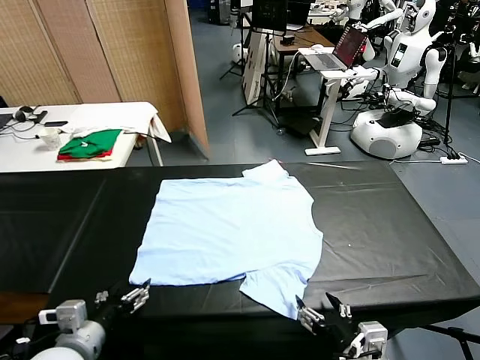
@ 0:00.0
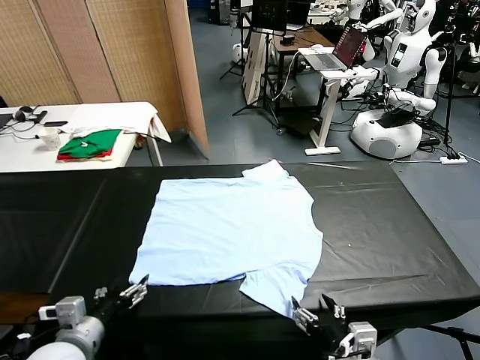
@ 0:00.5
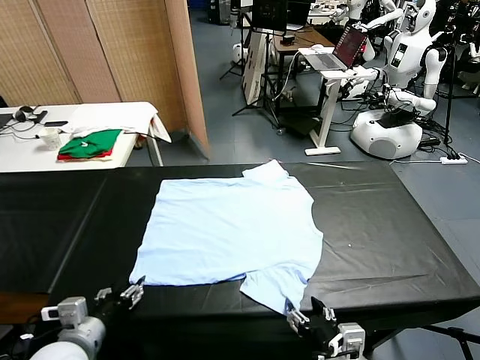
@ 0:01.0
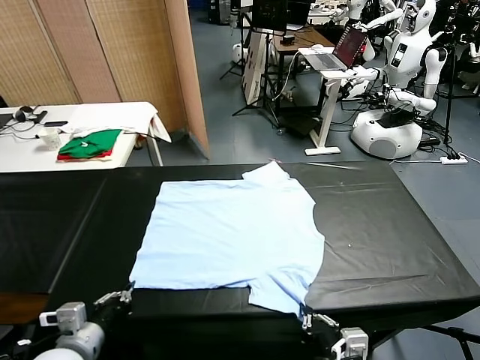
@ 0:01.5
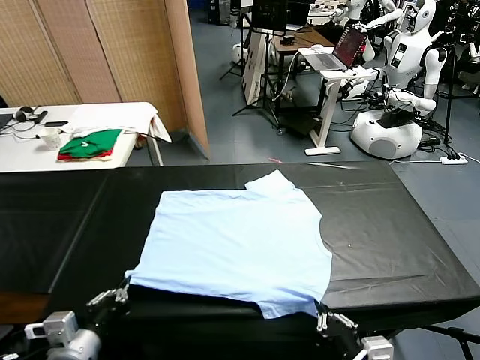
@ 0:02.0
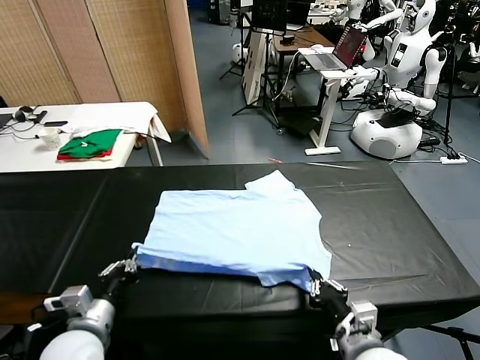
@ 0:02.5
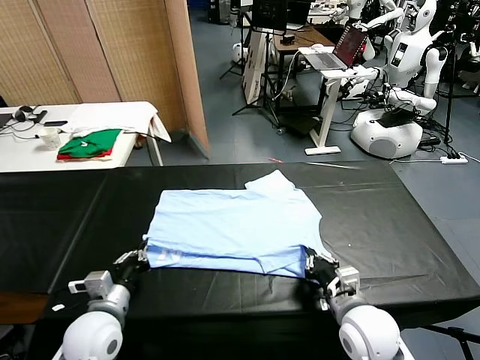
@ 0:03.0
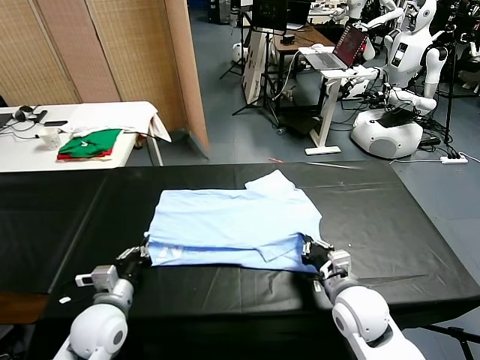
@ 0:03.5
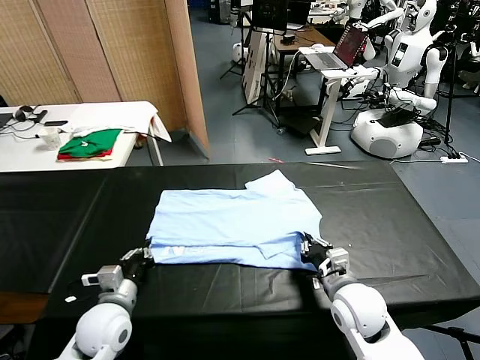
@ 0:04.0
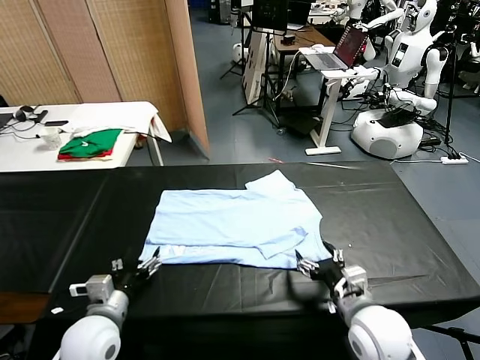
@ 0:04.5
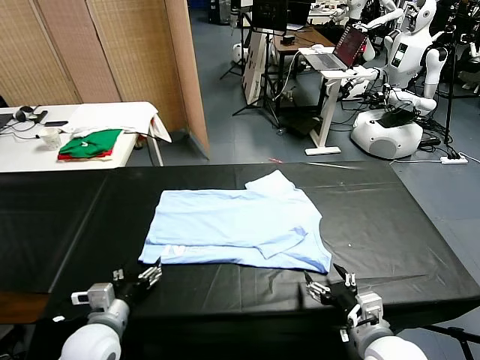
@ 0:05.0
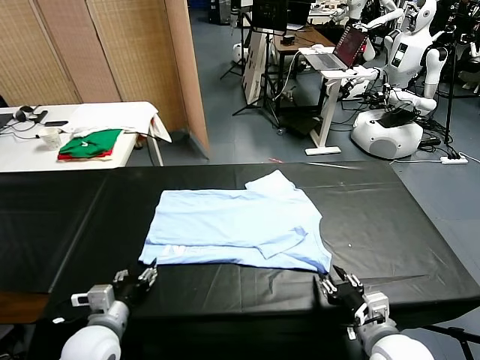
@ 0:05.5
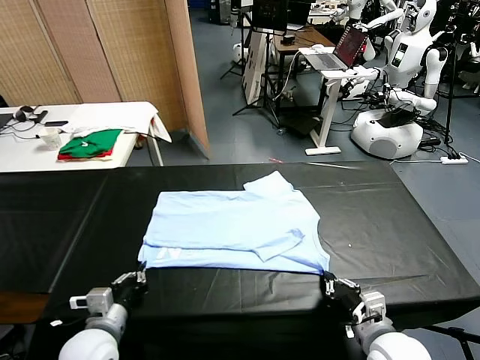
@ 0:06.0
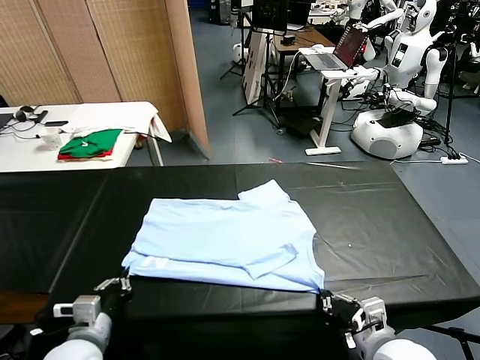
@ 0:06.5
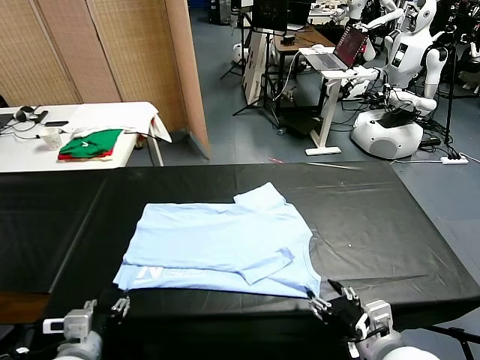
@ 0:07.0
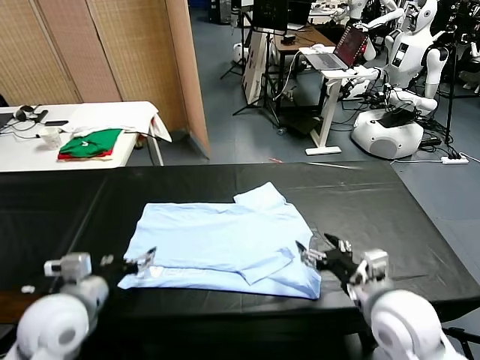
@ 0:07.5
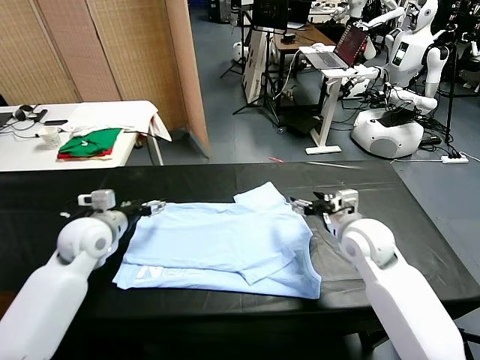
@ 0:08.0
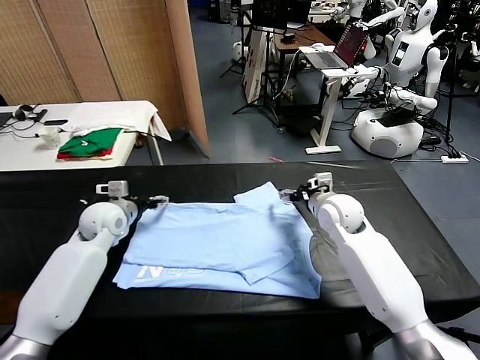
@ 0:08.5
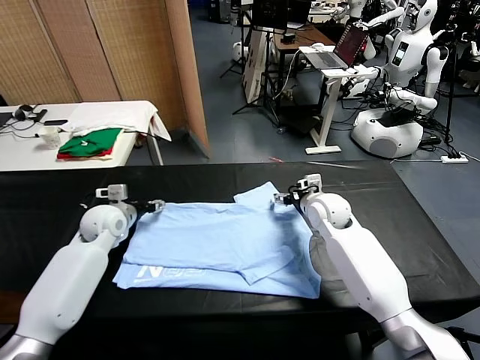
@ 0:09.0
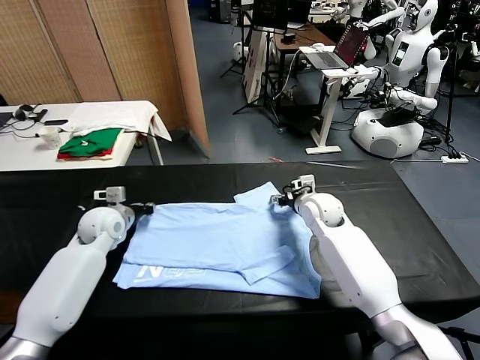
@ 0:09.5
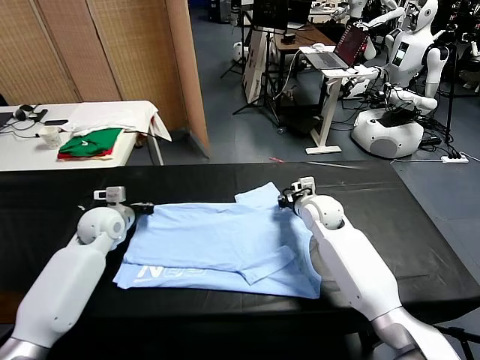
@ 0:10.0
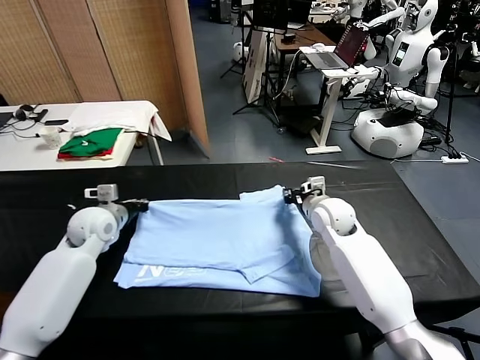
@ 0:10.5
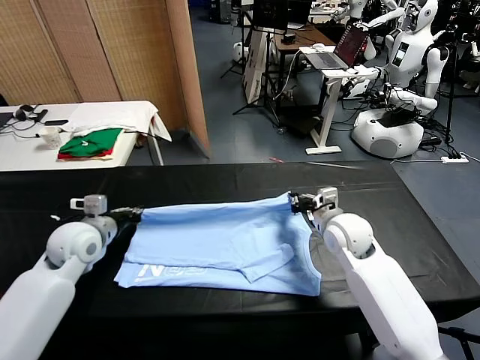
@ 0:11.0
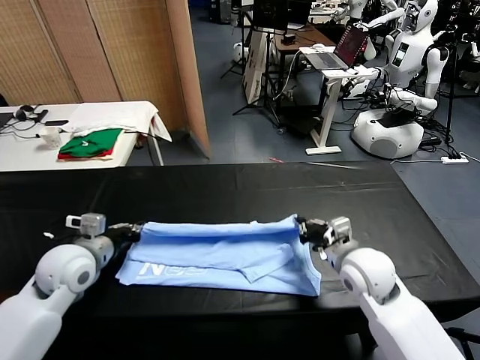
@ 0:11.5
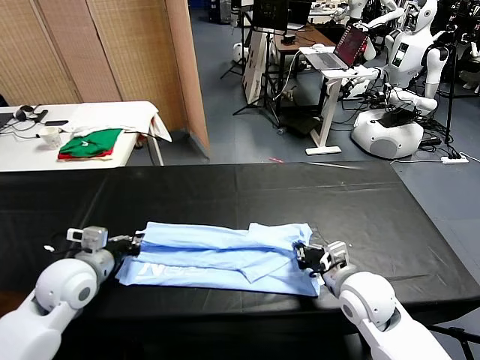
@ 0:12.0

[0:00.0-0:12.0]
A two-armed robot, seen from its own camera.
Task of the whole recording: fold and organize the clothes.
Step, 0:00.0 to 0:01.0: use both grippers simultaneously to clamp the lower edge of the clothing fabric.
Step, 0:01.5 to 0:04.0: use both grippers to drag the lower edge of the fabric forward and fold it over the upper edge.
Step, 0:04.5 to 0:07.0: Drag the clothes downward with both gripper.
Step, 0:07.5 to 0:09.5: use both grippers simultaneously to clamp the upper edge of the clothing fabric.
0:02.0 to 0:04.0: The right gripper shifts approximately 10 cm forward, and opens its fingers, while the left gripper travels forward and downward by about 15 cm.
0:04.0 to 0:06.0: The right gripper heads backward, covering about 10 cm, and closes. Meanwhile the left gripper is displaced backward by approximately 5 cm, and opens, then closes once more.
0:06.0 to 0:08.0: The left gripper heads forward and upward, covering some 25 cm, and opens up, while the right gripper is displaced forward by approximately 25 cm, and opens.
0:08.0 to 0:10.0: The left gripper changes place by approximately 5 cm, and closes up, while the right gripper is displaced forward by some 5 cm, and closes up.
0:10.0 to 0:12.0: The two grippers go roughly 20 cm backward.

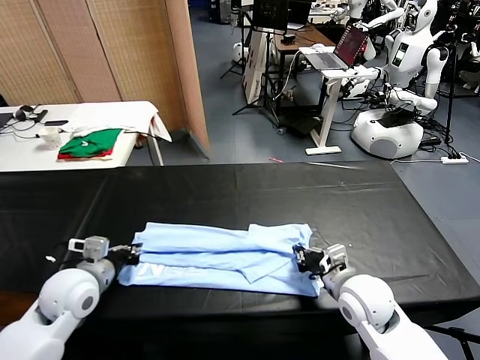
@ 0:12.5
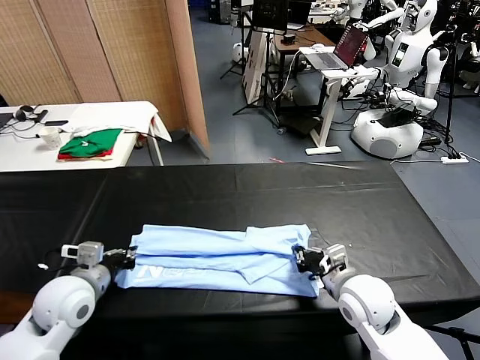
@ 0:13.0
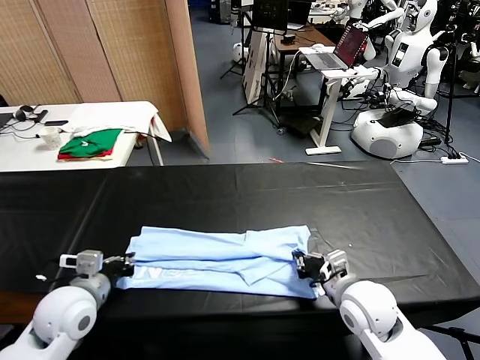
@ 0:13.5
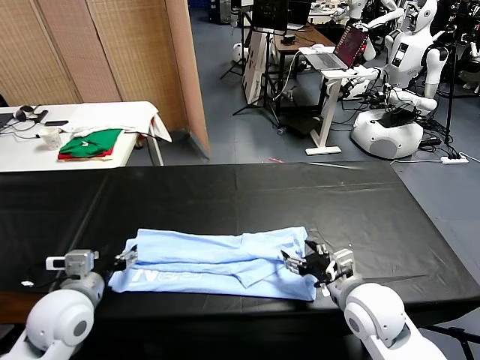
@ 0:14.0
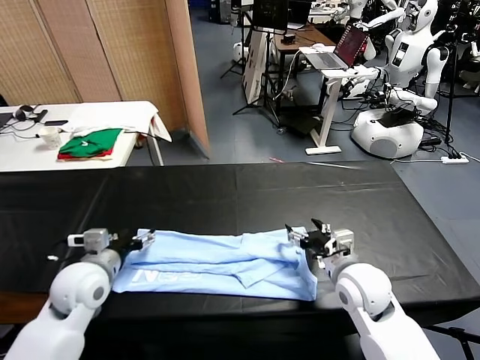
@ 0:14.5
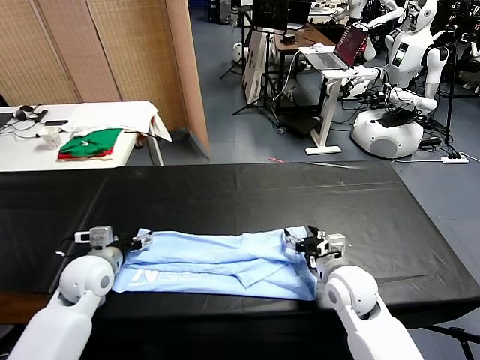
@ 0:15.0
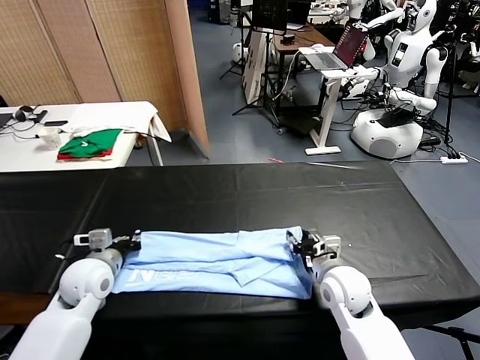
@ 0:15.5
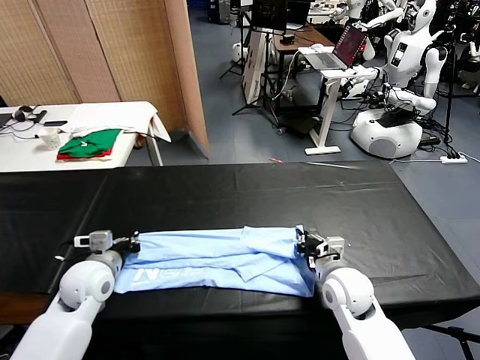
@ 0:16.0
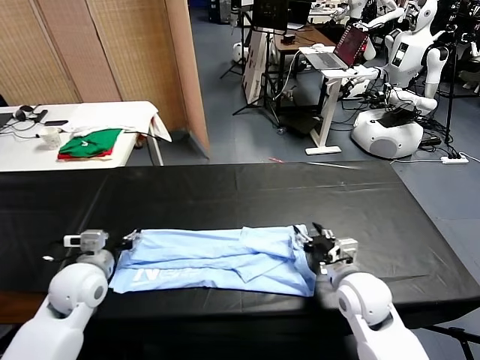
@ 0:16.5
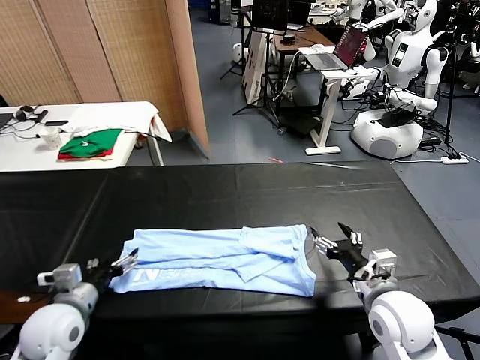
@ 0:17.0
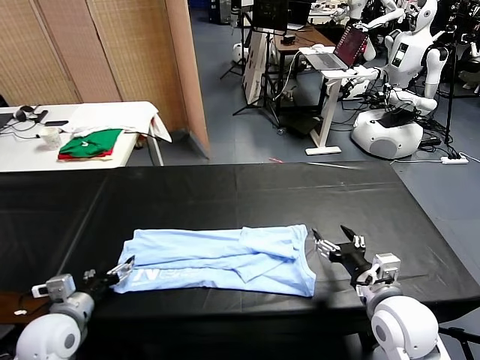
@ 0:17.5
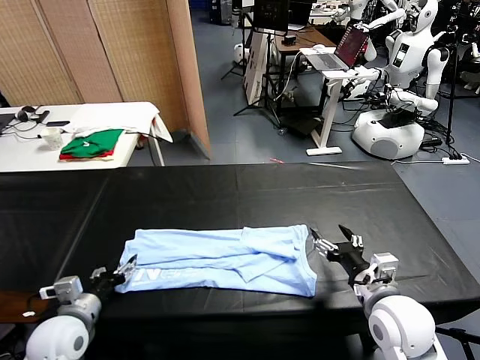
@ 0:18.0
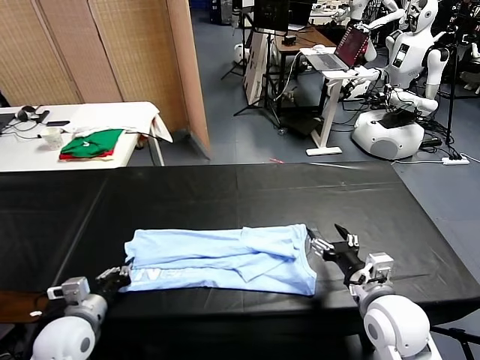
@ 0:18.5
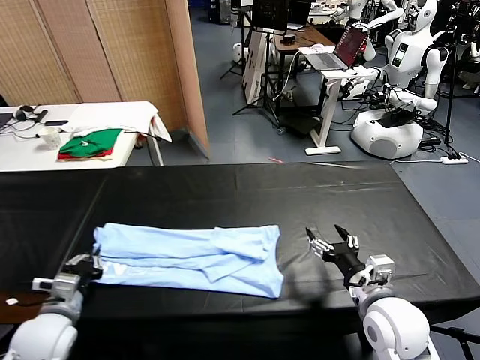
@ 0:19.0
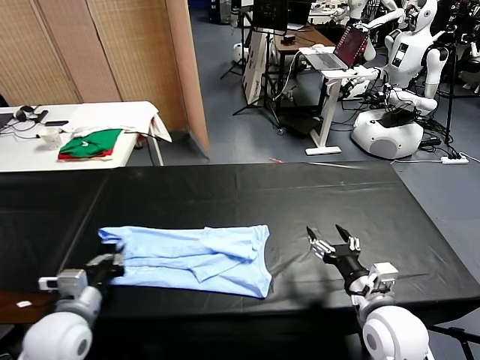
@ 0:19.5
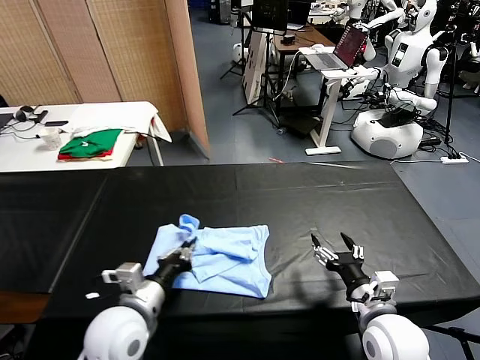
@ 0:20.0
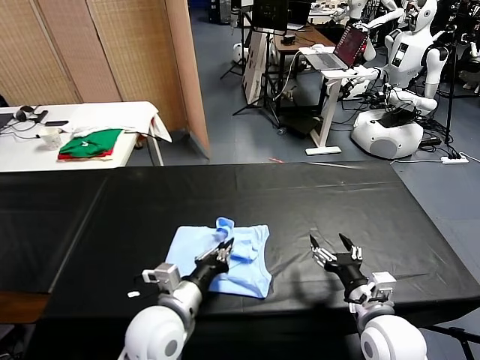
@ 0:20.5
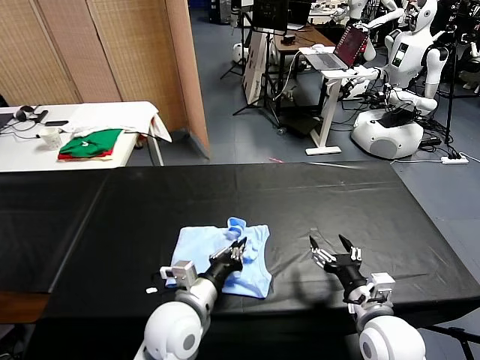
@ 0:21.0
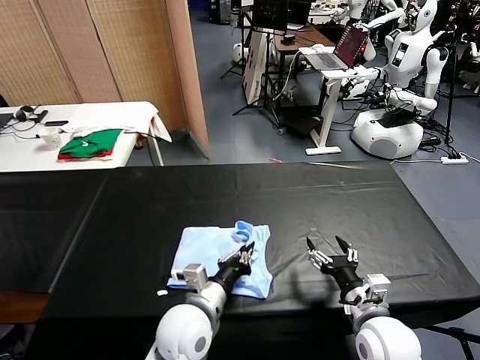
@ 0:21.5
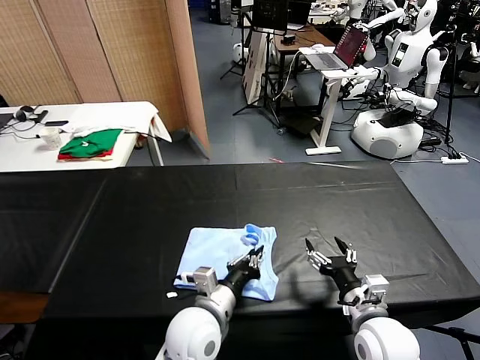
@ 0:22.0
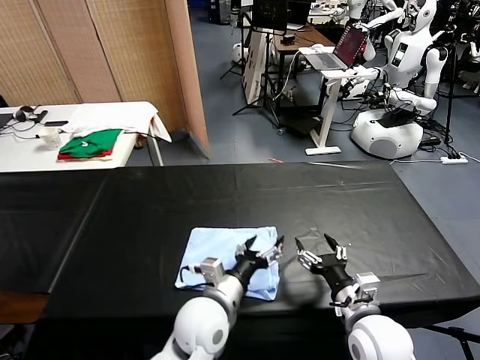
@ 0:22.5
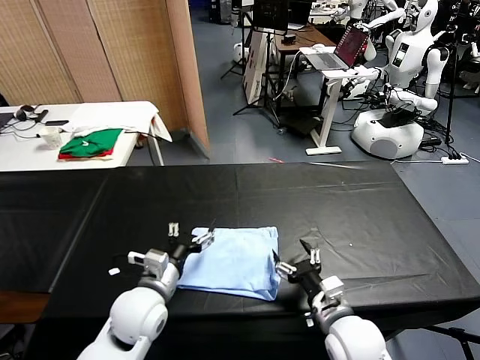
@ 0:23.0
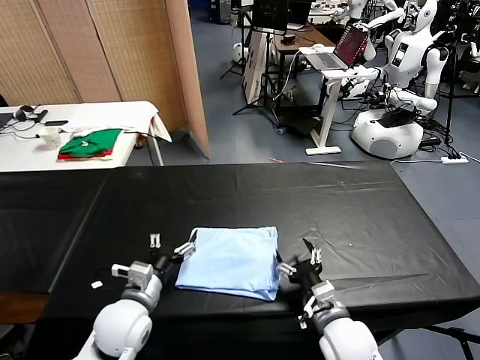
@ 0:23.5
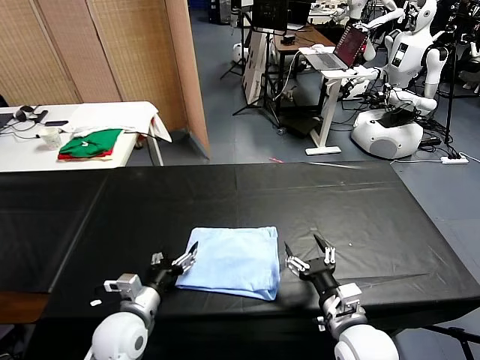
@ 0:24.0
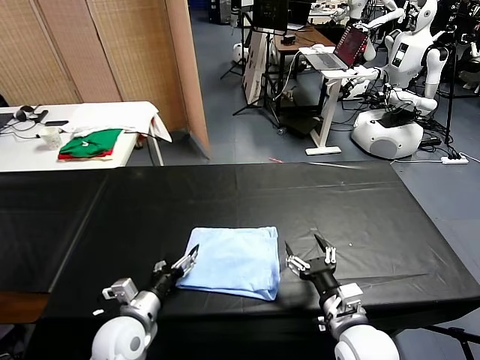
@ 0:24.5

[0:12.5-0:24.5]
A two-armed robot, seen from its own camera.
Task of the whole recording: fold and organize the clothes.
Step, 0:14.0 to 0:18.0: use the left gripper to clamp the left edge of the fabric.
Step, 0:18.5 to 0:22.0: use the left gripper to drag the left edge of the fabric to the left and folds it over the right edge.
0:12.5 to 0:14.5: The left gripper opens its fingers, while the right gripper opens up.
0:14.5 to 0:16.5: The right gripper closes, then reopens; the left gripper closes and opens again.
0:16.5 to 0:18.5: The left gripper heads backward and downward, covering approximately 10 cm, and closes up.
0:18.5 to 0:20.5: The left gripper is displaced to the right by about 20 cm.
0:20.5 to 0:22.5: The left gripper travels to the right by about 5 cm, and opens.
0:22.5 to 0:24.5: The left gripper moves to the left, about 15 cm.

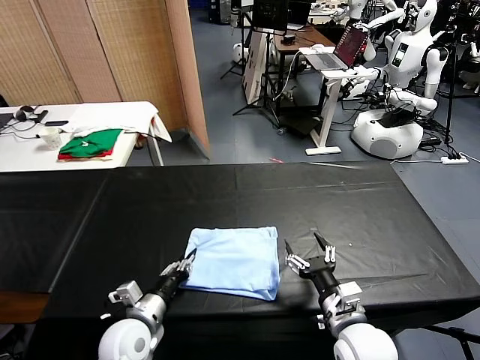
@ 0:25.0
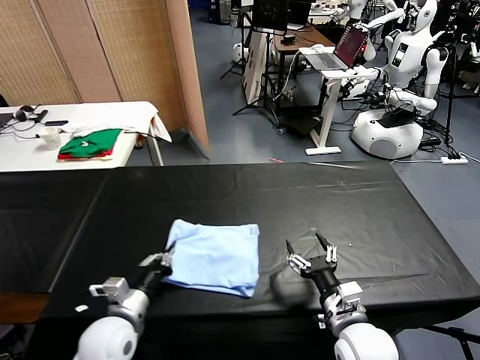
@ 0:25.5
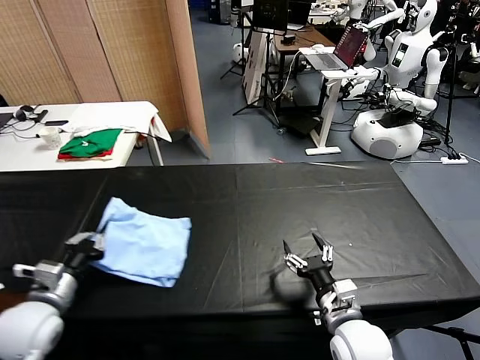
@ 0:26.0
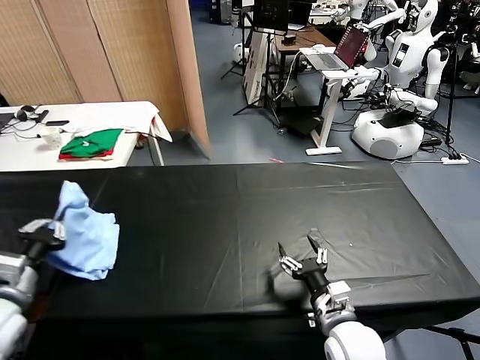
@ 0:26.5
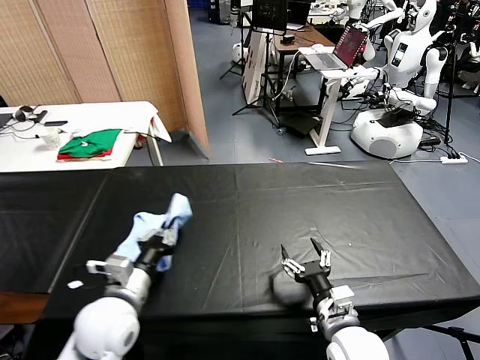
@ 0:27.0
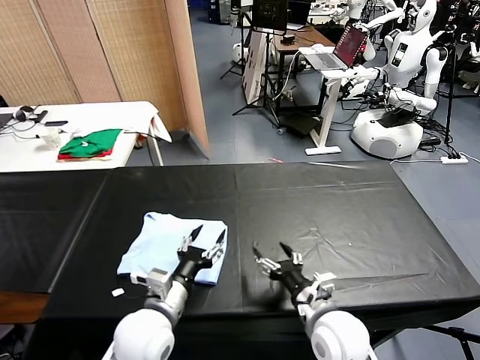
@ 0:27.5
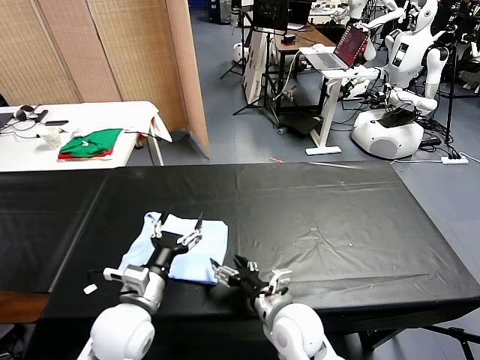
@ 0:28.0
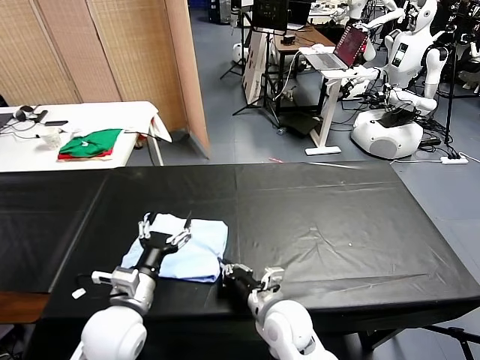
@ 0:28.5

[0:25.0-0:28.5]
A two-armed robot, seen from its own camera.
Task of the whole recording: fold and organize the clothes.
Step, 0:25.0 to 0:27.0: Flip the folded clothes over with left gripper.
0:25.0 to 0:27.0: The left gripper goes approximately 10 cm upward, and moves about 15 cm to the left and comes back.
0:27.0 to 0:28.5: The left gripper opens; the right gripper heads to the left and forward, covering roughly 15 cm, and closes.
